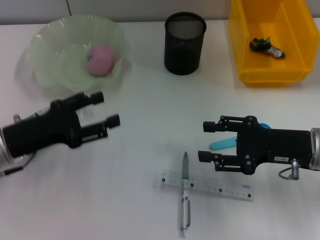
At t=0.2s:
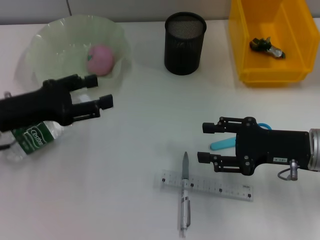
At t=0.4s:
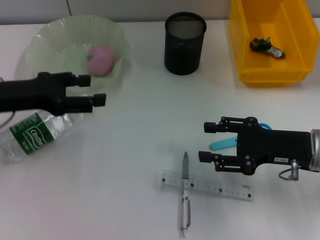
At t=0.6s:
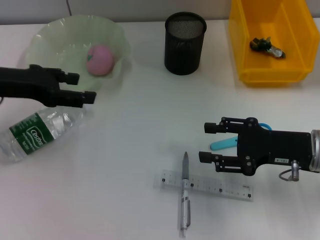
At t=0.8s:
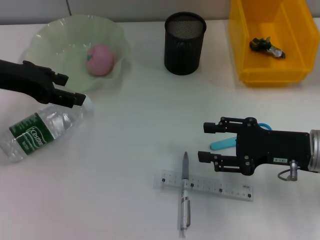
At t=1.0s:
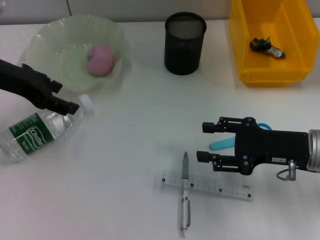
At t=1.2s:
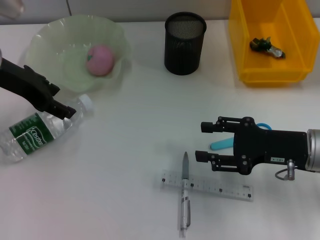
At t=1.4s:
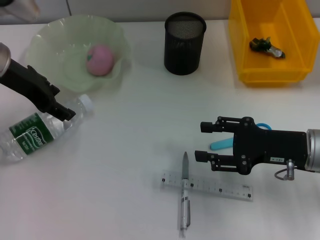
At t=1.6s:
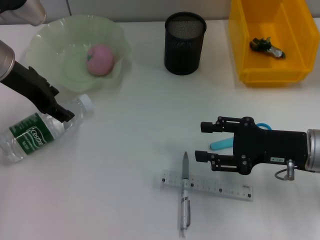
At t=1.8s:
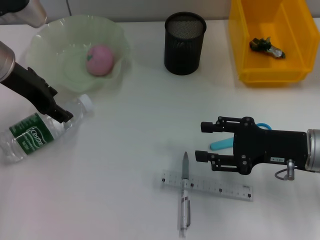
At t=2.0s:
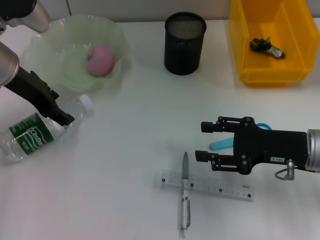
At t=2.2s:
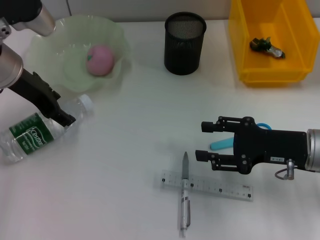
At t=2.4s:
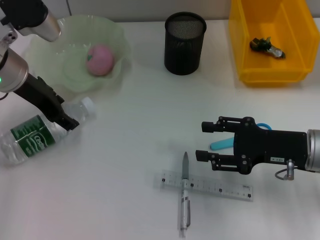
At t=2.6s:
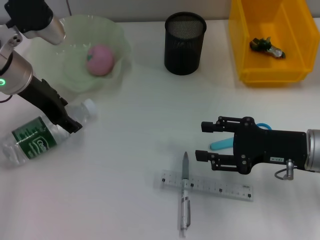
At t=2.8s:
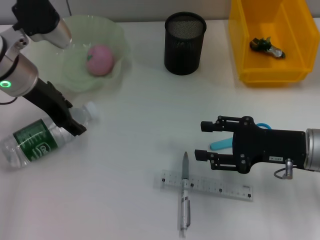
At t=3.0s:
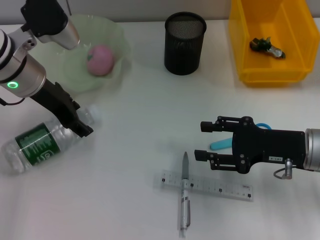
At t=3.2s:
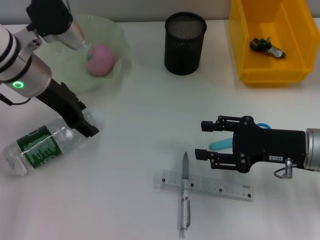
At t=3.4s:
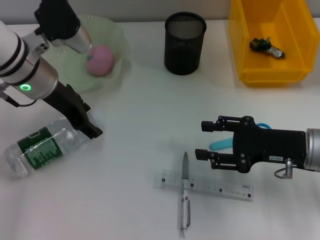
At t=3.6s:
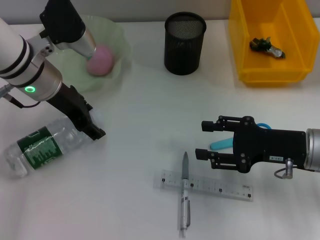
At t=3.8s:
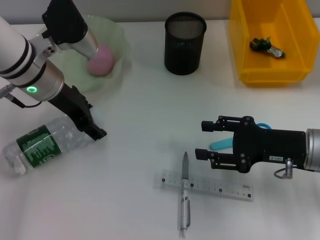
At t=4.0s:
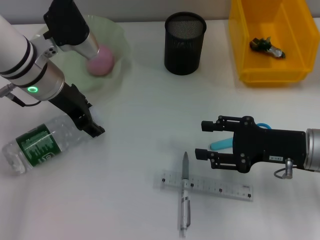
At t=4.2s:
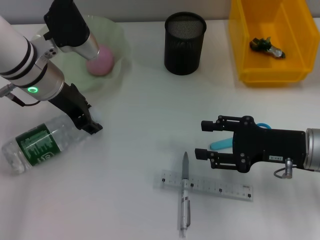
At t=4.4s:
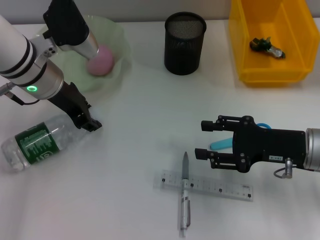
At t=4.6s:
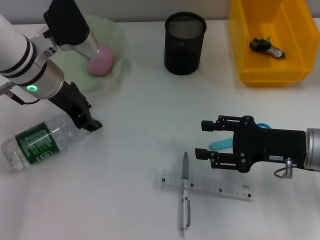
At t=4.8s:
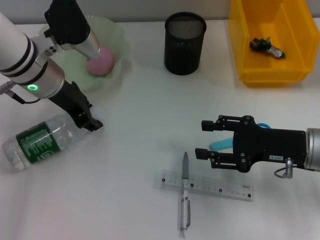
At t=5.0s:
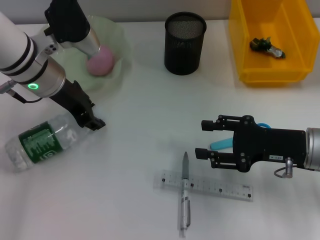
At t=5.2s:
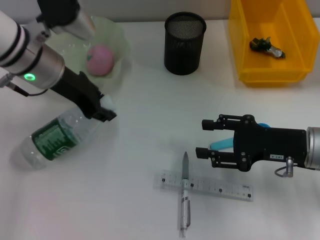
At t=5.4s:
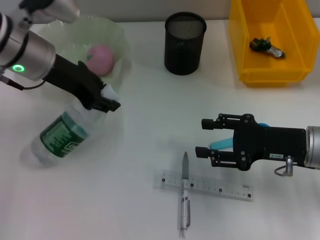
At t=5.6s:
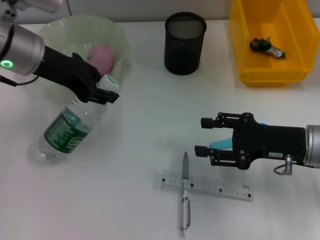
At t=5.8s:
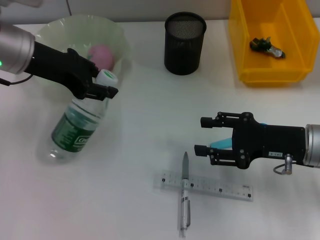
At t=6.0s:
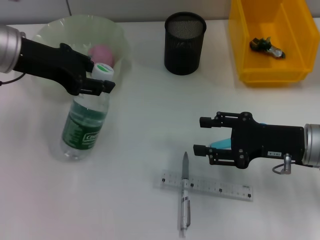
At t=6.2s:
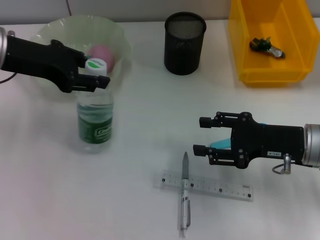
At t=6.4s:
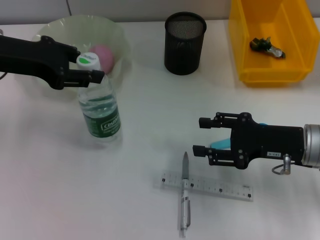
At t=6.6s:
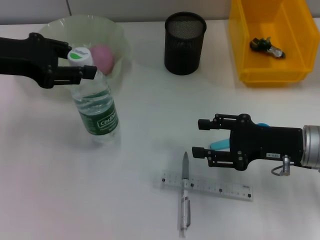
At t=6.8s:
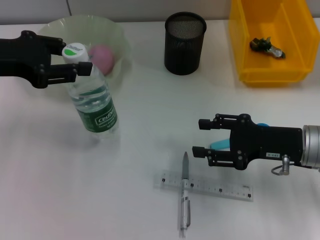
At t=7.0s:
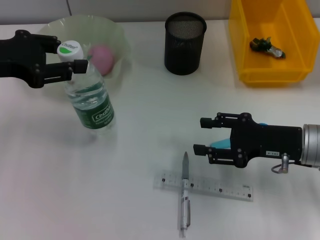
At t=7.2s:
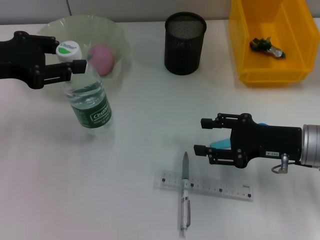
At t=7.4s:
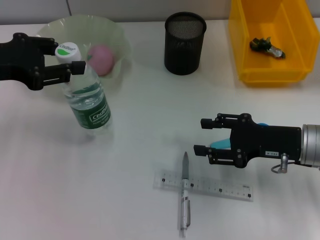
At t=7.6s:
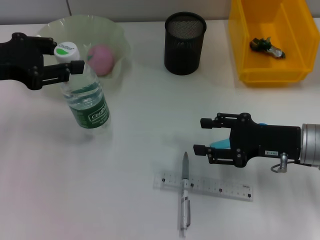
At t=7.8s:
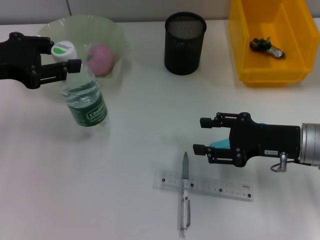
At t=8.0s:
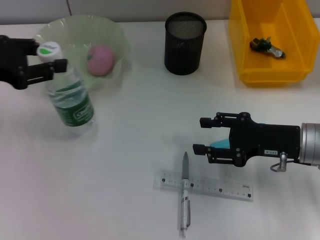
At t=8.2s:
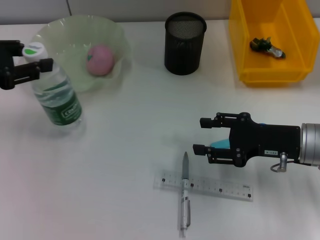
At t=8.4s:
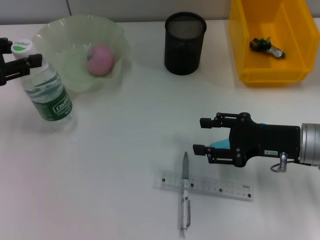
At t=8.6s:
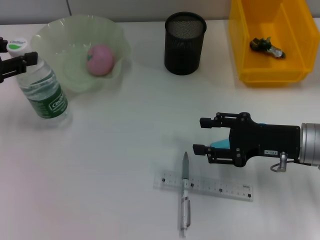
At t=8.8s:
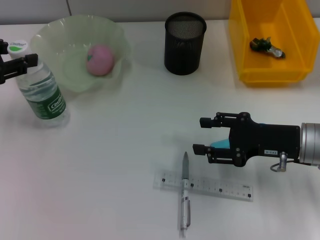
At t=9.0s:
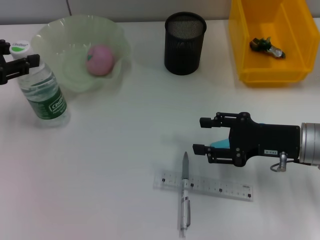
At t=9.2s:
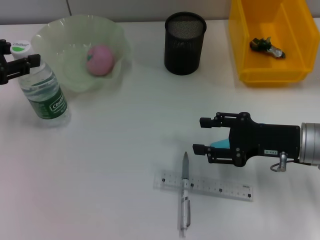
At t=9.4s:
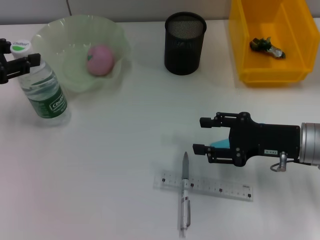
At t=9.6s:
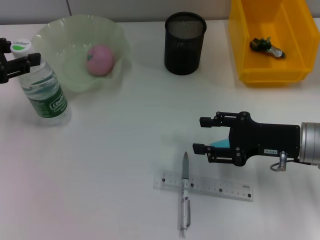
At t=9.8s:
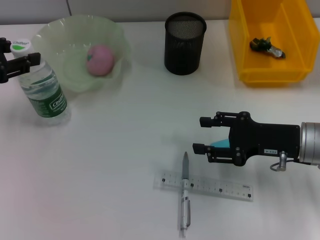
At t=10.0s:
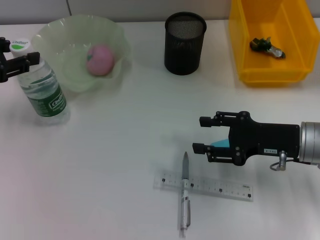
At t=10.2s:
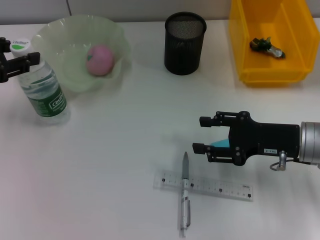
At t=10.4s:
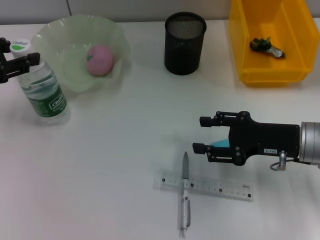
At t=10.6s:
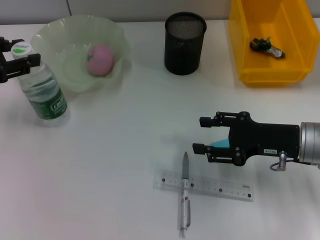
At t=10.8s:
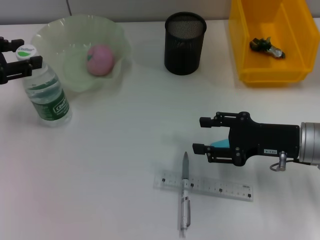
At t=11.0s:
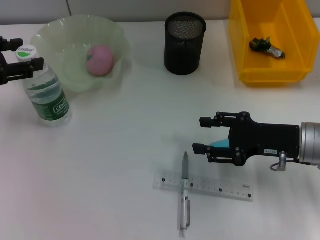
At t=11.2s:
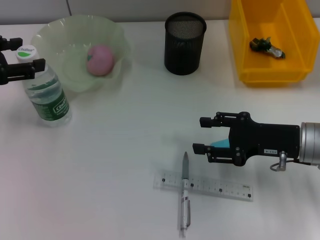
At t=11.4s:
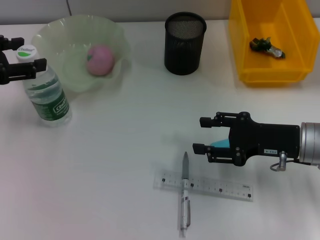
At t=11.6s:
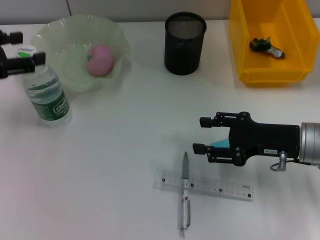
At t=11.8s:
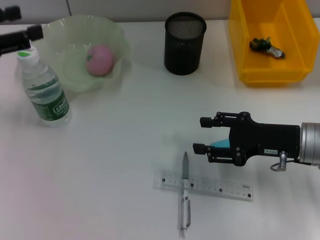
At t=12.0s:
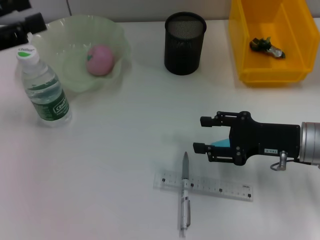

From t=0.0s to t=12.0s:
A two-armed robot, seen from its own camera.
Step, from t=0.0s to t=4.8s: Grab the water bottle with the left hand.
Step, from t=5.0s to t=10.6s: Place the water bottle on the table with the left hand.
From t=0.0s to t=1.6s: The left gripper heads upward and forward, covering some 15 cm.
From t=1.6s to t=3.0s: There are only small adjustments of the grippers.
From t=3.0s to t=4.4s: There are only small adjustments of the grippers.
From t=4.4s to t=6.0s: The left gripper travels upward by approximately 5 cm.
From t=6.0s to t=7.6s: The left gripper shifts some 5 cm to the left.
From t=7.6s to t=9.0s: The grippers move only a little.
From t=9.0s to t=10.4s: The two grippers keep their place.

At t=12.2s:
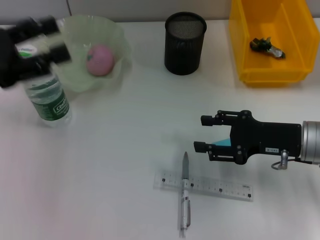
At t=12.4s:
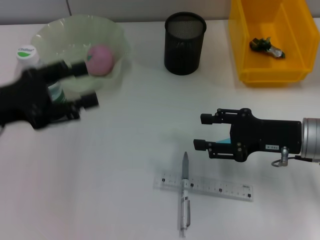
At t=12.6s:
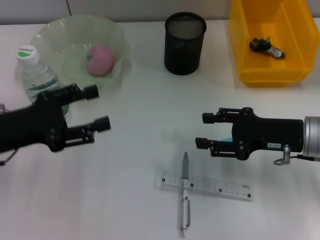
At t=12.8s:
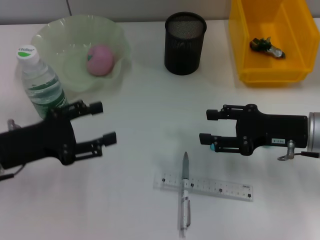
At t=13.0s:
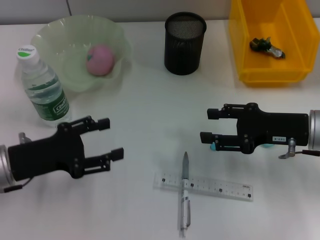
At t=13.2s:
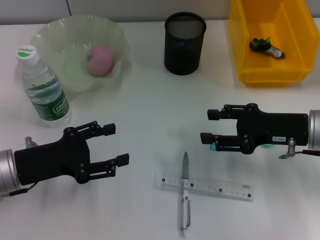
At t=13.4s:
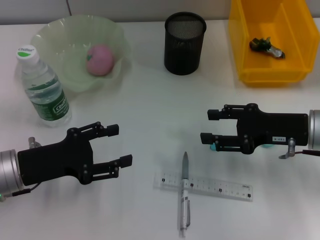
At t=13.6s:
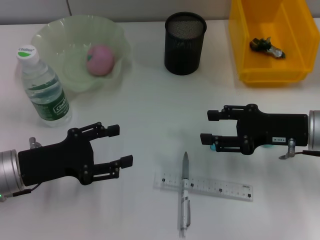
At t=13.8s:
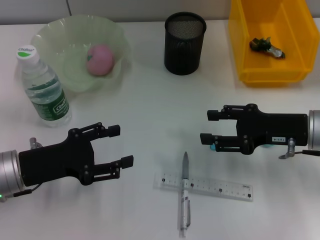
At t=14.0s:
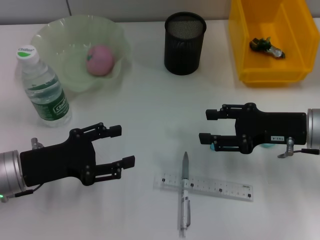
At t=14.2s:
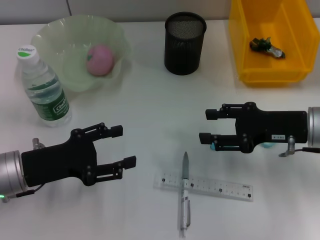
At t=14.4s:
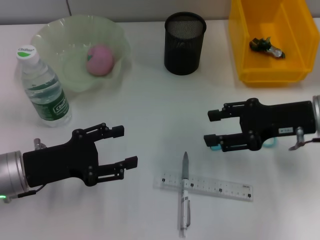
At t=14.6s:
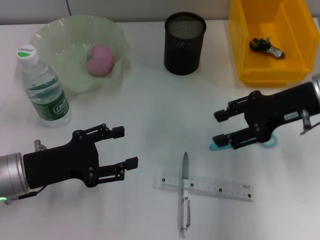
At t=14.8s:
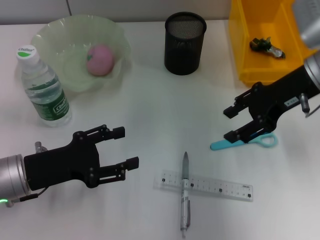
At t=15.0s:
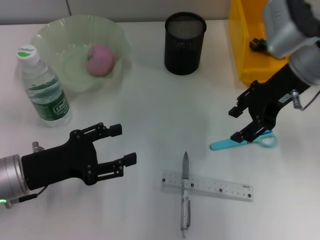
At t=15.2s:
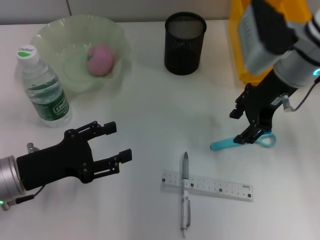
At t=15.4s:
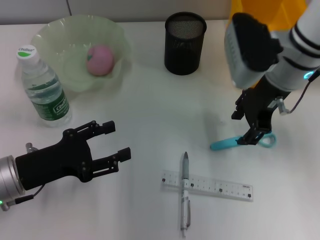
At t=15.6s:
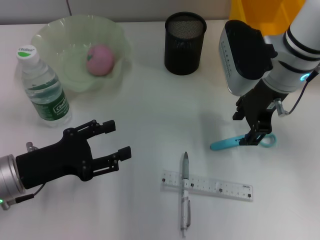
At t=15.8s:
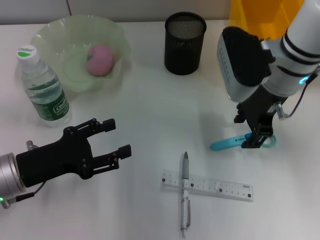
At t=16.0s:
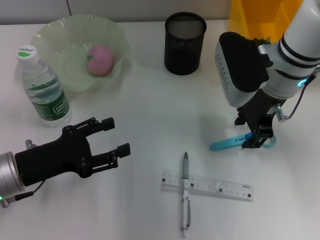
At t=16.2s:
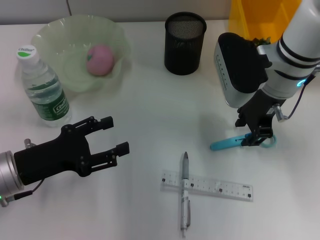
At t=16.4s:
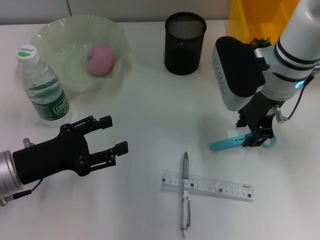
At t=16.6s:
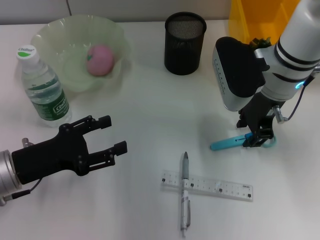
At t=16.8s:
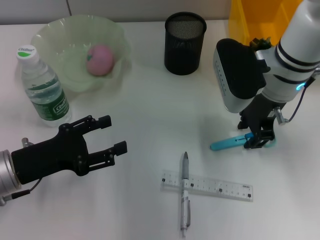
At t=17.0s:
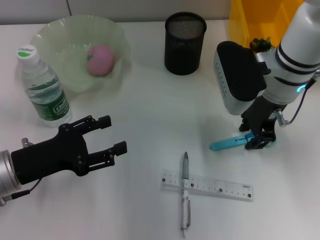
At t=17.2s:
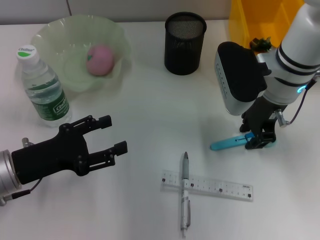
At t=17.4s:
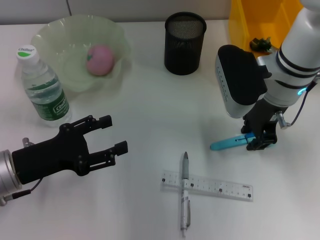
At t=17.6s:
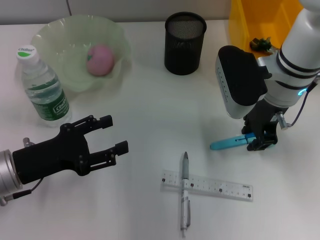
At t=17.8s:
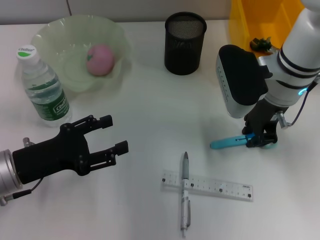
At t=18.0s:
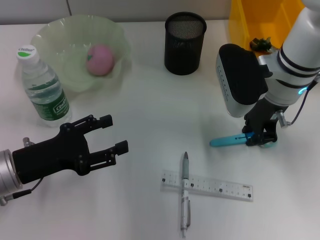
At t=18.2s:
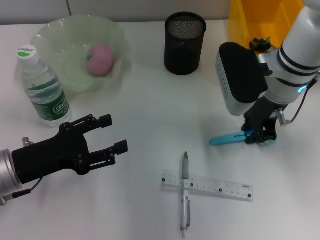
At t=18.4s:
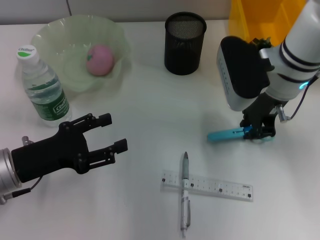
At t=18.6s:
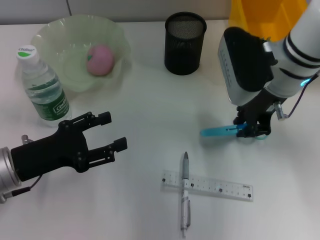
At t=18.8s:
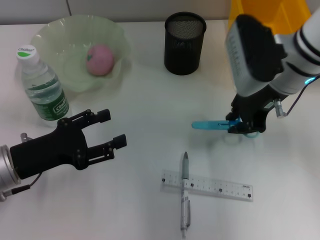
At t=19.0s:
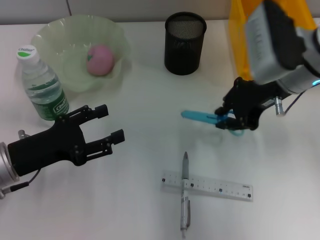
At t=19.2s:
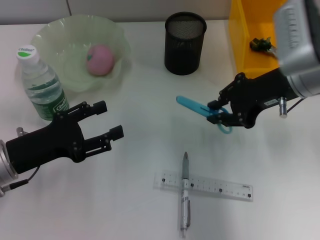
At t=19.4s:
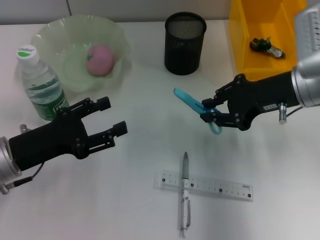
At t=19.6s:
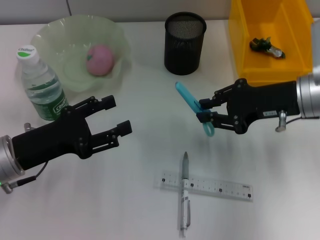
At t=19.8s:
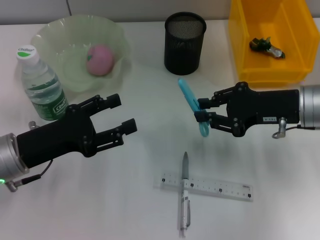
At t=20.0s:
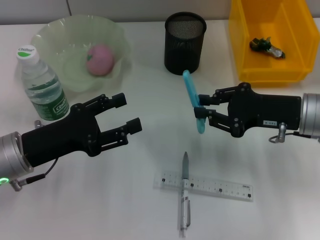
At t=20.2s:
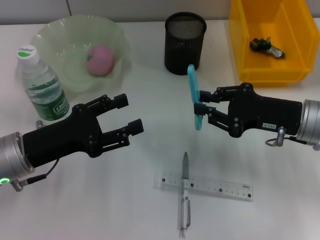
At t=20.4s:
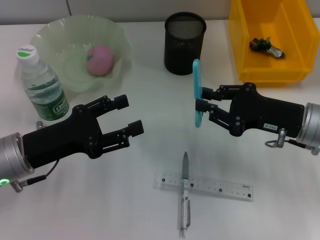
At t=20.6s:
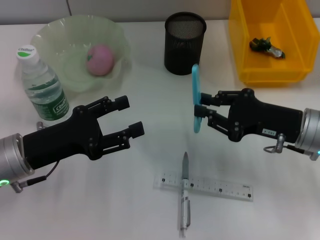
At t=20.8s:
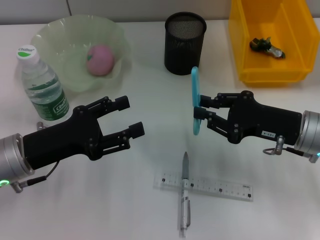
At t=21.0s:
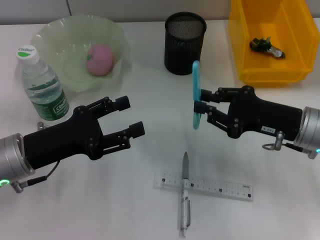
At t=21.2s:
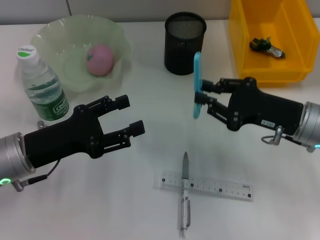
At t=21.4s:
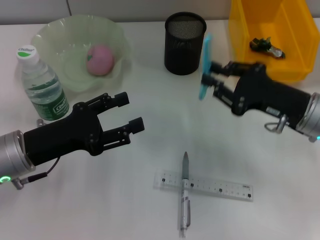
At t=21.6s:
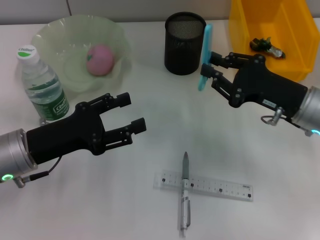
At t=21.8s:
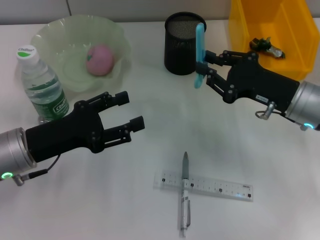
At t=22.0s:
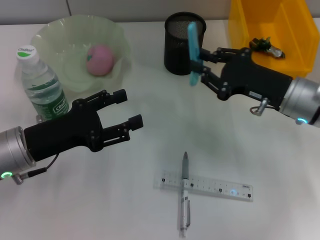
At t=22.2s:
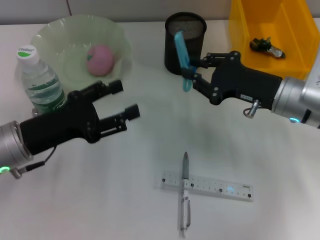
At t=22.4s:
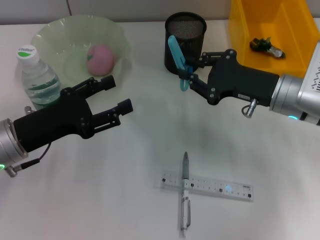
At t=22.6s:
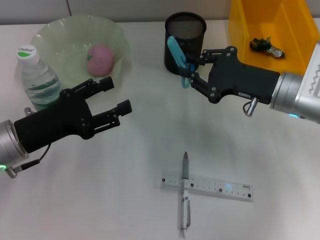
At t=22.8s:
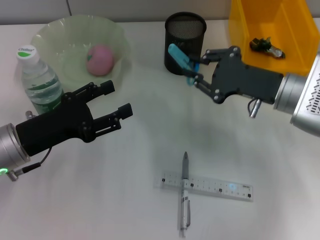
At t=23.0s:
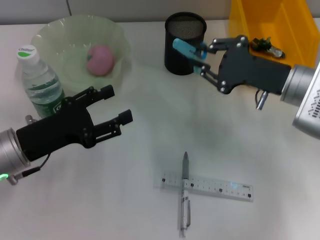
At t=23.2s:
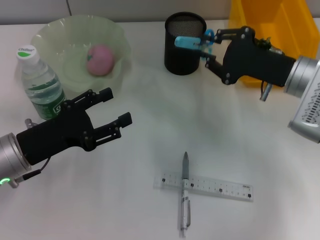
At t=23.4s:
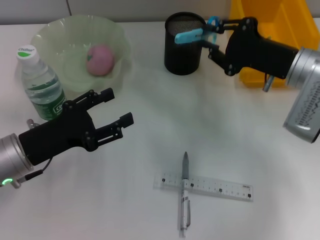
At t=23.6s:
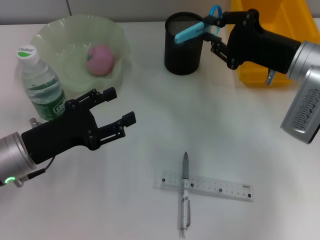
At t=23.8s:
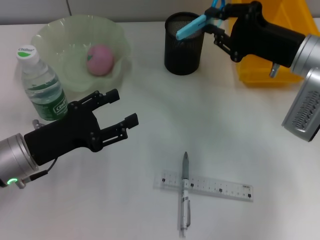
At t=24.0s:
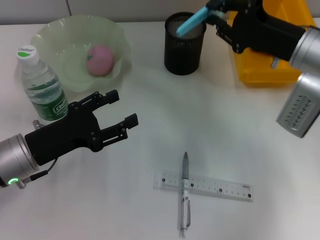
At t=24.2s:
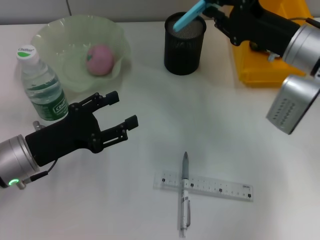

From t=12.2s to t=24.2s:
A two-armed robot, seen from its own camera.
Step, from t=12.2s to t=18.0s: Grab the blue scissors with the right hand.
From t=12.2s to t=13.8s: The left gripper travels downward and to the right by about 15 cm.
From t=13.8s to t=15.2s: The right gripper moves upward, forward and to the left, about 15 cm.
From t=15.2s to t=16.6s: The grippers stay close to where they were, moving slightly.
From t=16.6s to t=18.2s: Both grippers stay put.
From t=18.2s to t=19.8s: The right gripper shifts about 10 cm to the right and backward.
From t=21.2s to t=22.6s: The right gripper ends up roughly 5 cm from where it was.
From t=22.6s to t=24.2s: The right gripper changes place by approximately 5 cm.
